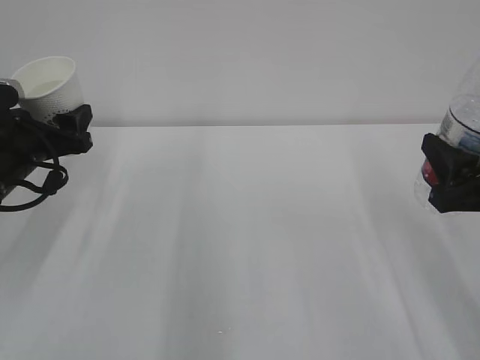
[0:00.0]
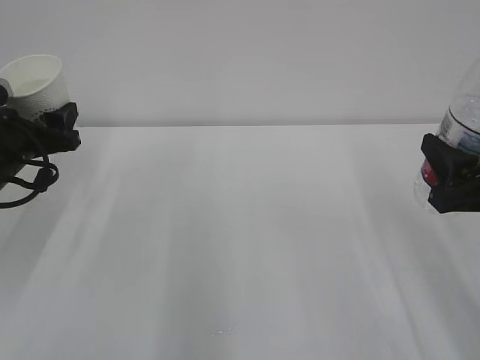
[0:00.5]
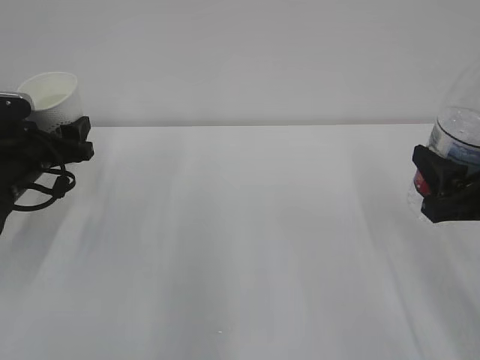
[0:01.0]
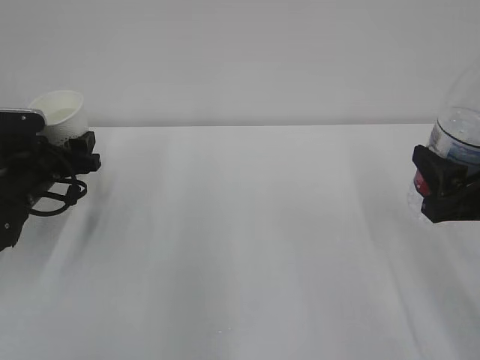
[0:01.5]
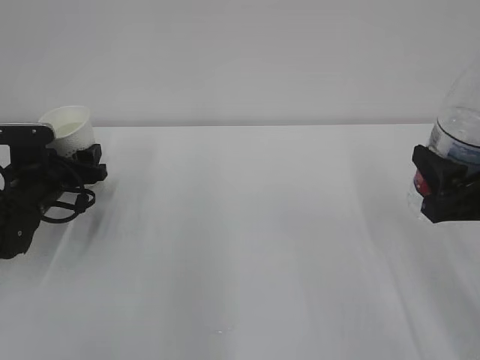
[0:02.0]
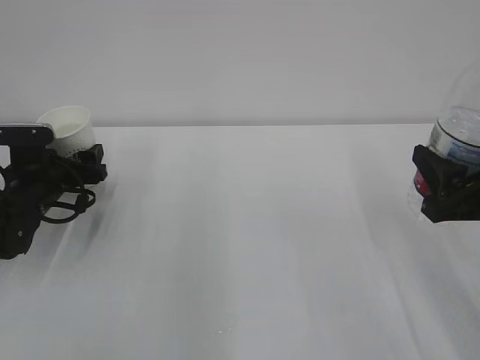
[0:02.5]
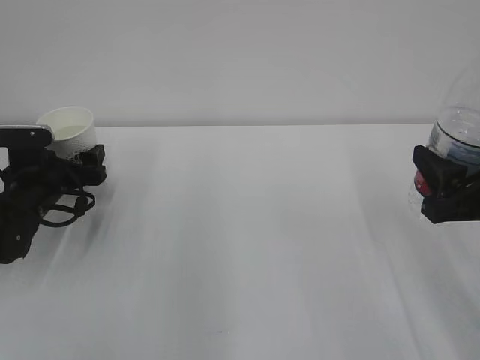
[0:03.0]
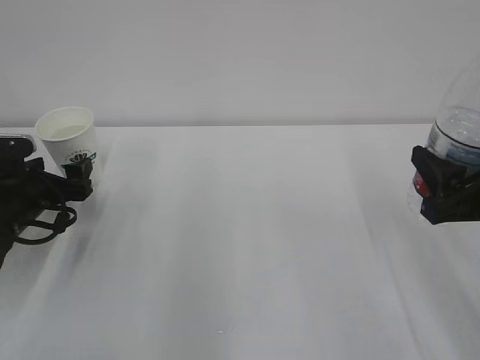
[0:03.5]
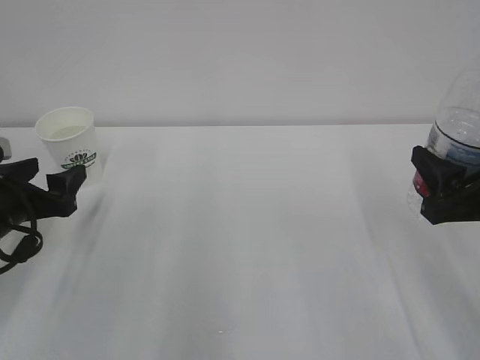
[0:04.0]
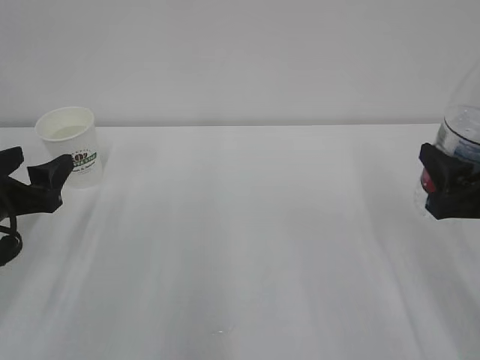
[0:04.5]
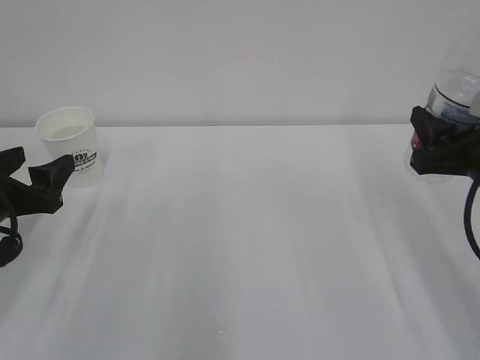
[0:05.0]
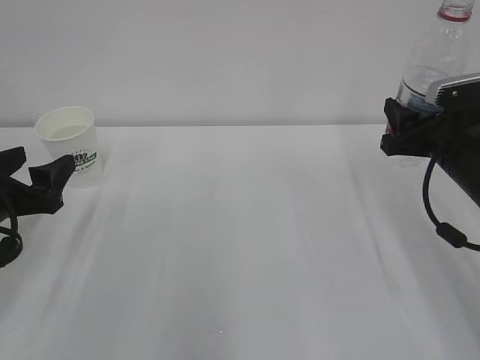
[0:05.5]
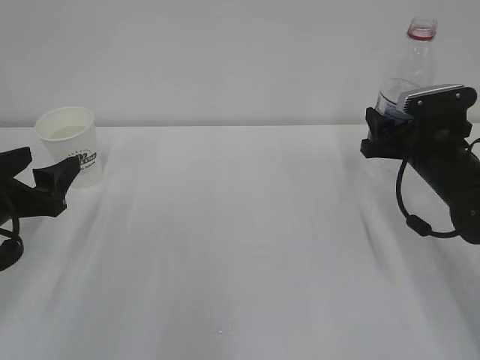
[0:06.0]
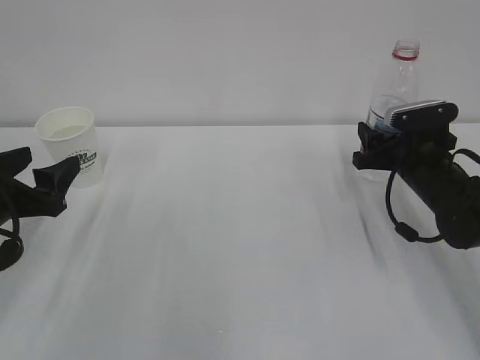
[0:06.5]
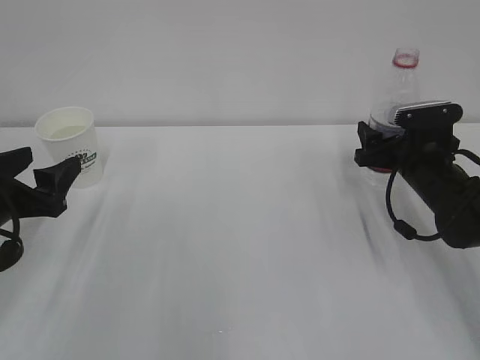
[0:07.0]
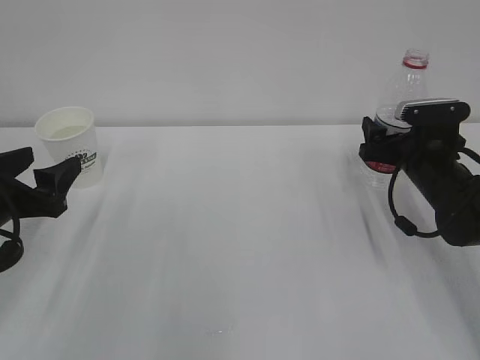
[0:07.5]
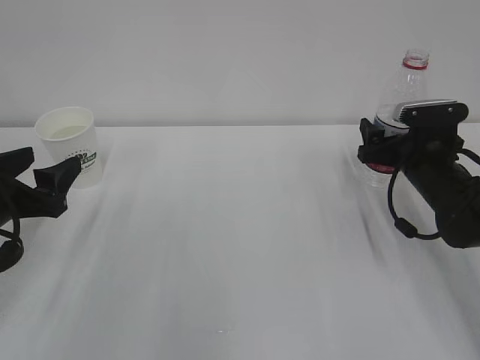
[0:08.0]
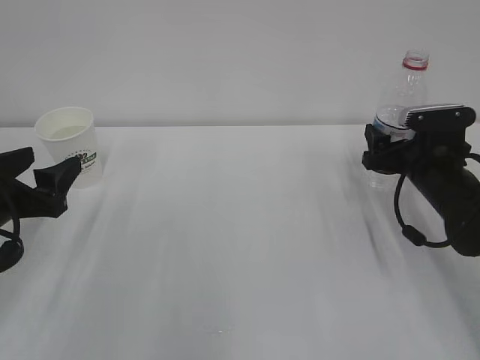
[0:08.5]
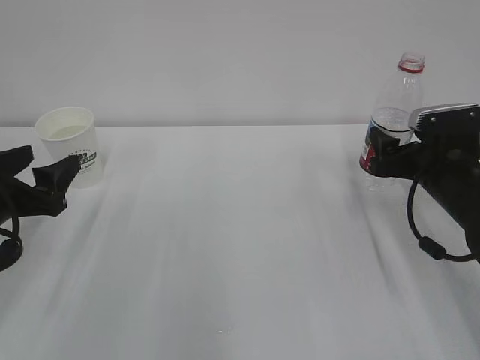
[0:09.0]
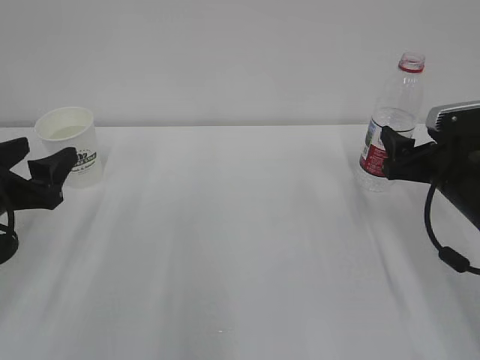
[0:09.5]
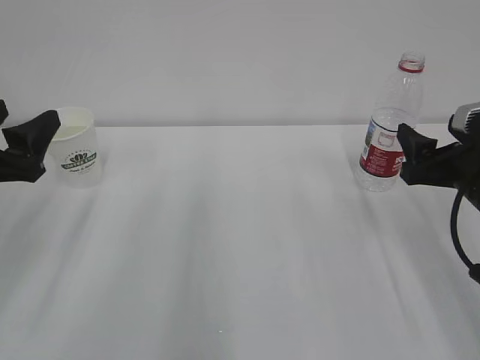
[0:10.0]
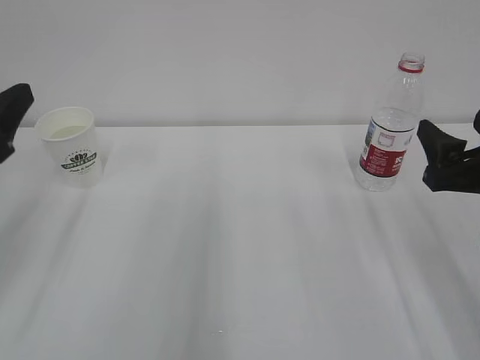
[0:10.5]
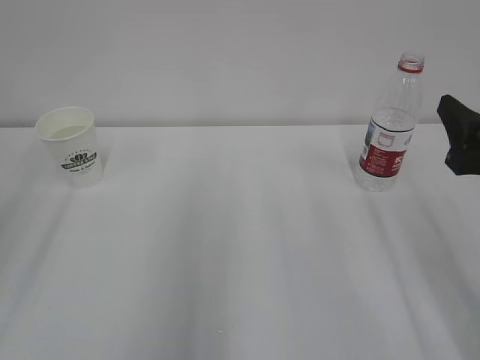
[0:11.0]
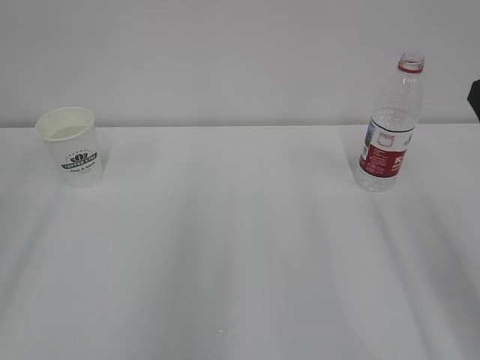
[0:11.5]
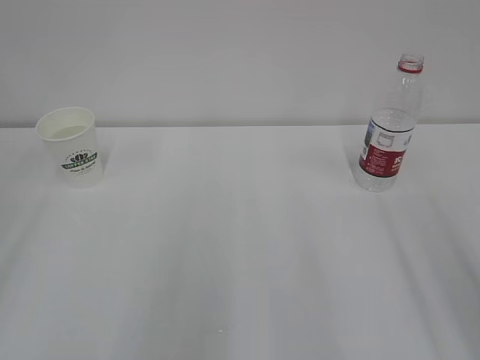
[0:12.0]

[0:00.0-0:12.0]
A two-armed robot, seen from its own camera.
0:00.0 to 0:02.0: The left gripper heads downward, covering approximately 10 cm.
0:02.0 to 0:04.0: The left gripper moves backward, approximately 10 cm, and opens.
0:04.0 to 0:06.0: The right gripper shifts roughly 15 cm forward.
0:06.0 to 0:08.0: The right gripper opens its fingers.
0:08.0 to 0:10.0: The right gripper shifts approximately 10 cm backward and upward.
0:10.0 to 0:12.0: Both grippers travel together backward and upward, approximately 20 cm.

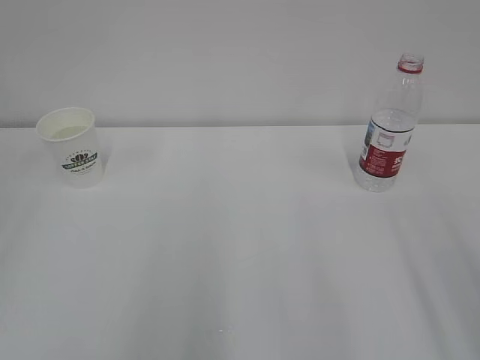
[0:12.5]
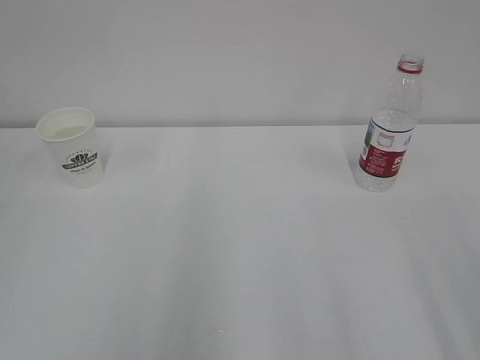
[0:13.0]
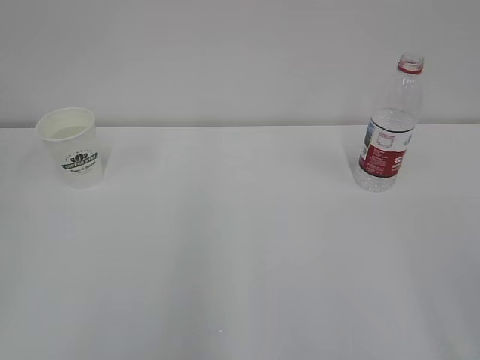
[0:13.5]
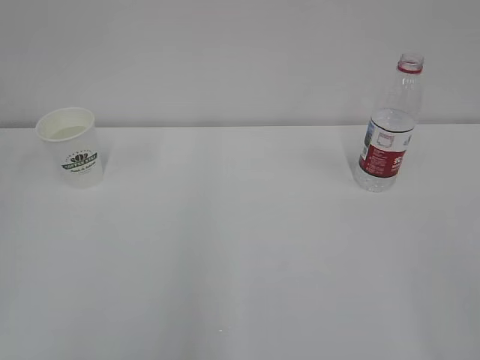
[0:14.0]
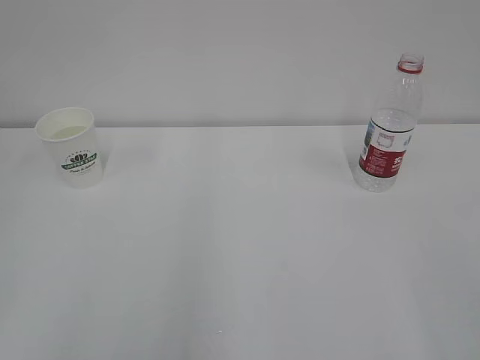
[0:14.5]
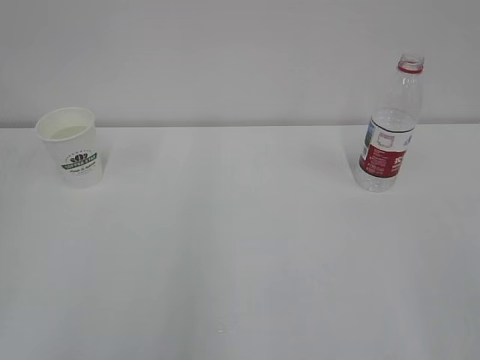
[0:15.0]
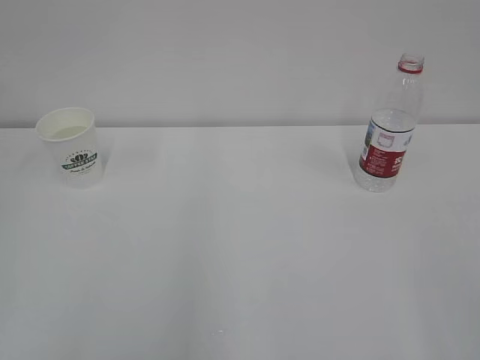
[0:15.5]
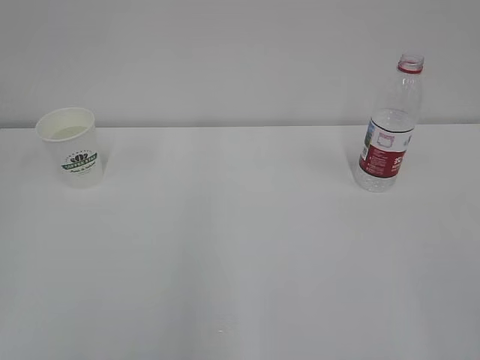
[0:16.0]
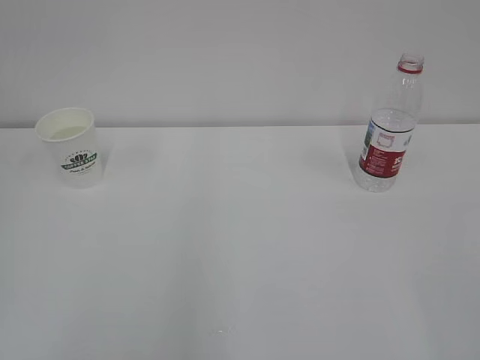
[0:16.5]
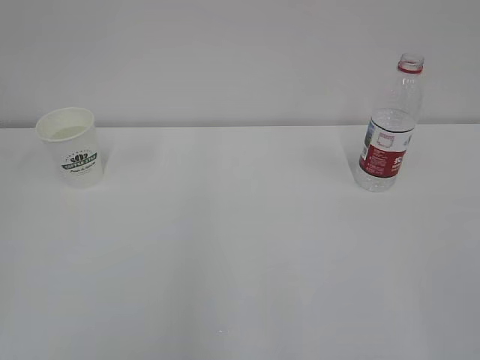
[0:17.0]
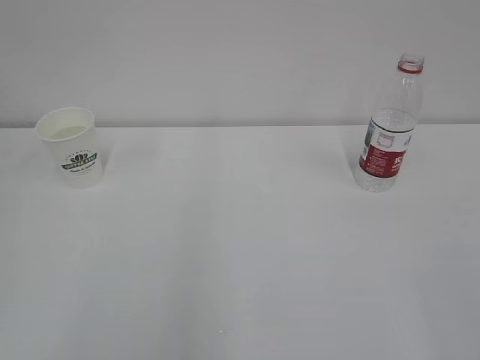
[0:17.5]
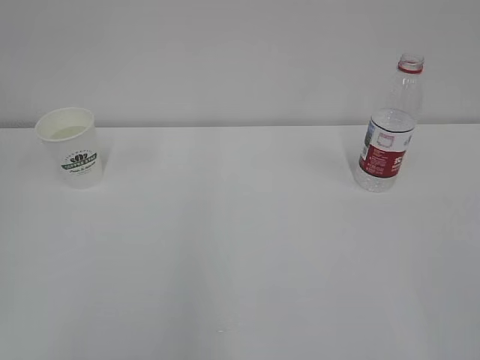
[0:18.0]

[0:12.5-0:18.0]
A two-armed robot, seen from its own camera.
0:16.0 to 0:18.0: The two grippers keep their place.

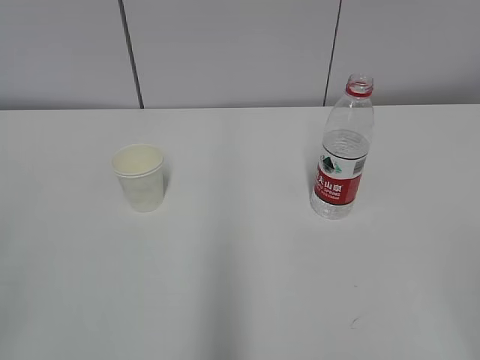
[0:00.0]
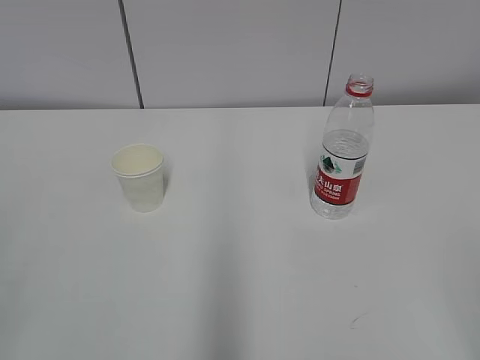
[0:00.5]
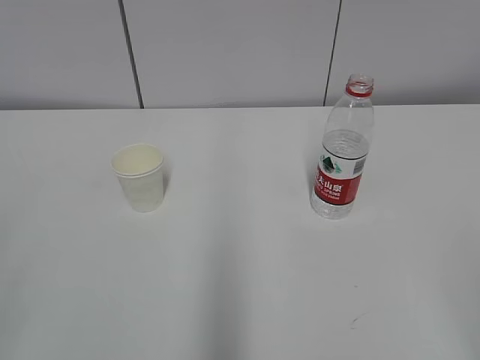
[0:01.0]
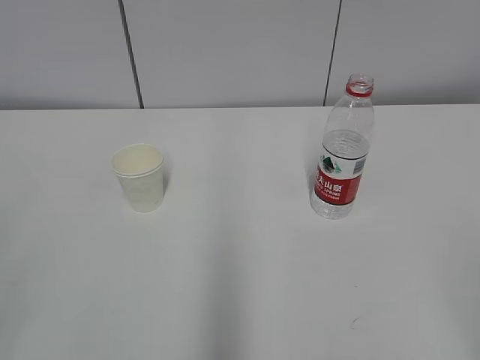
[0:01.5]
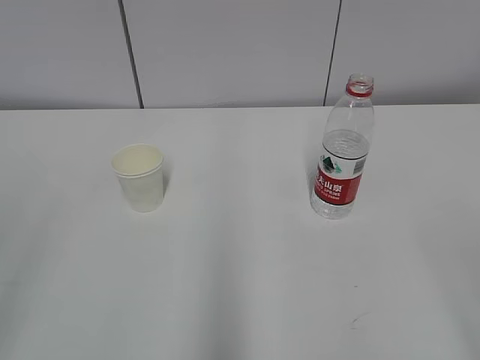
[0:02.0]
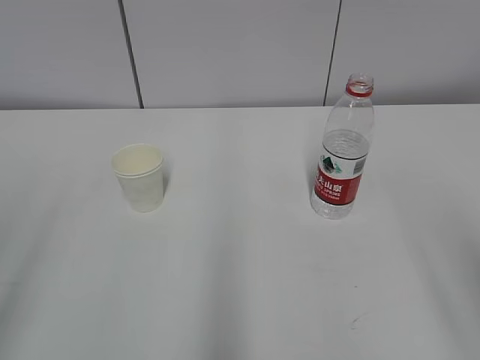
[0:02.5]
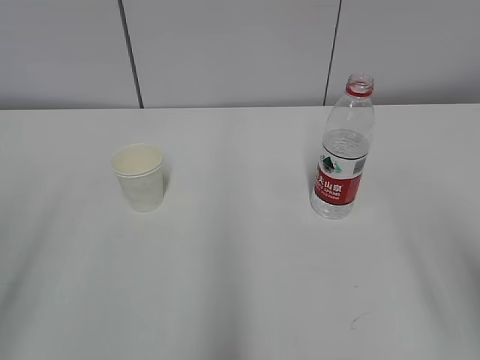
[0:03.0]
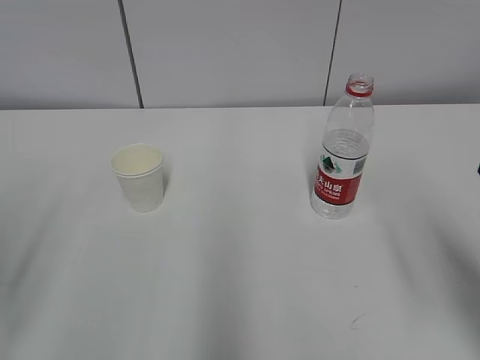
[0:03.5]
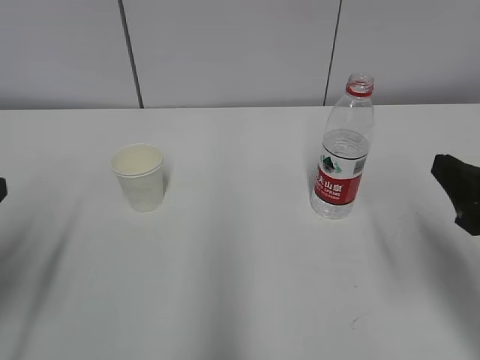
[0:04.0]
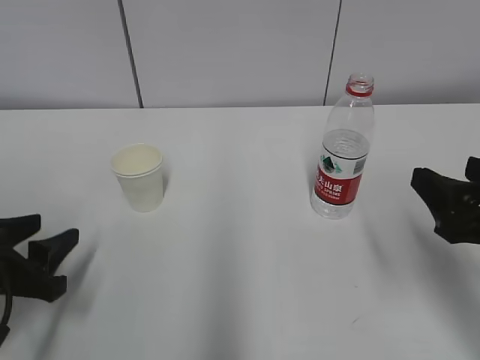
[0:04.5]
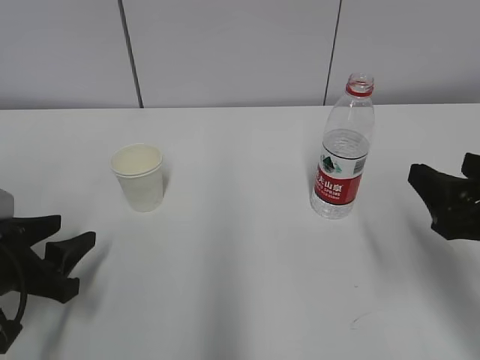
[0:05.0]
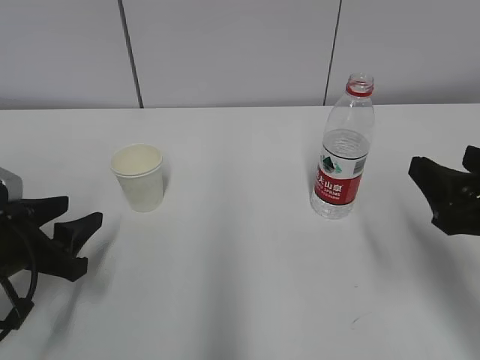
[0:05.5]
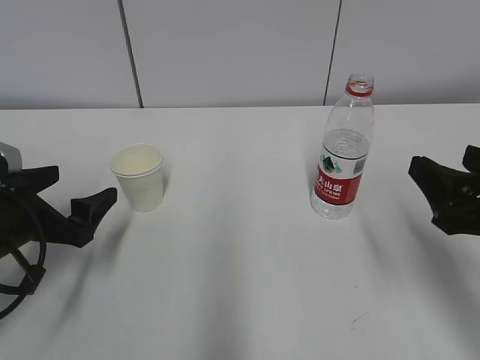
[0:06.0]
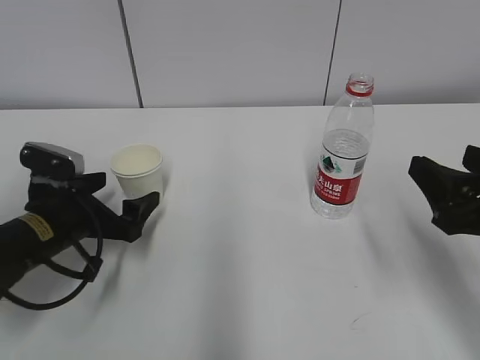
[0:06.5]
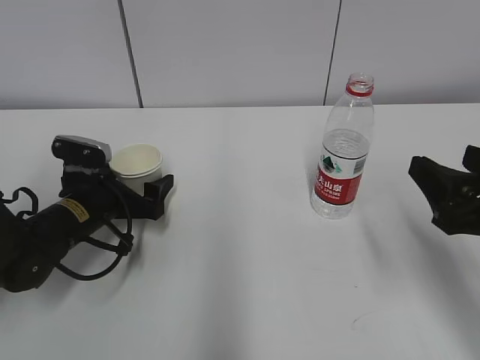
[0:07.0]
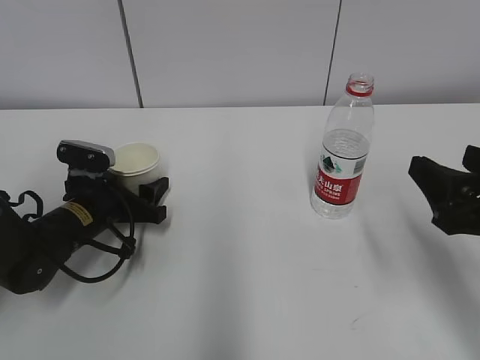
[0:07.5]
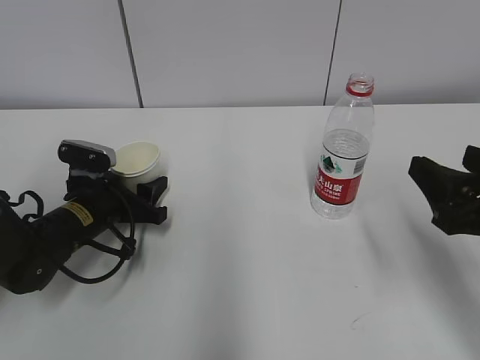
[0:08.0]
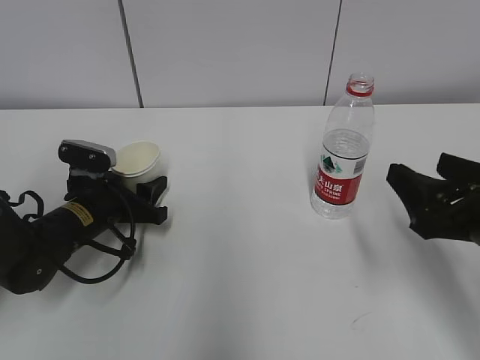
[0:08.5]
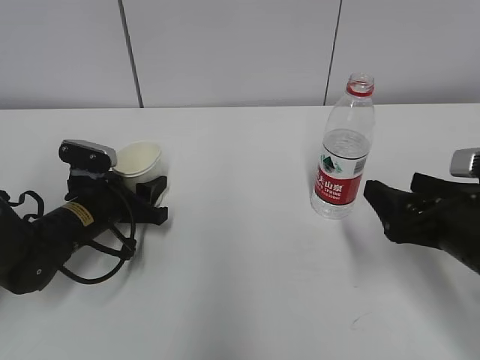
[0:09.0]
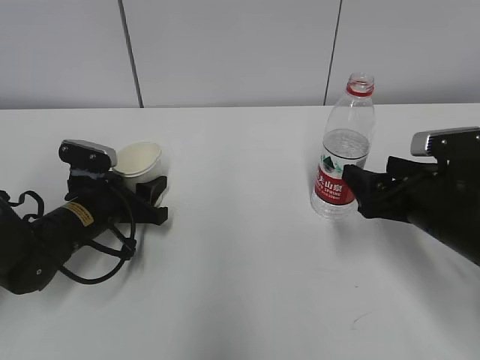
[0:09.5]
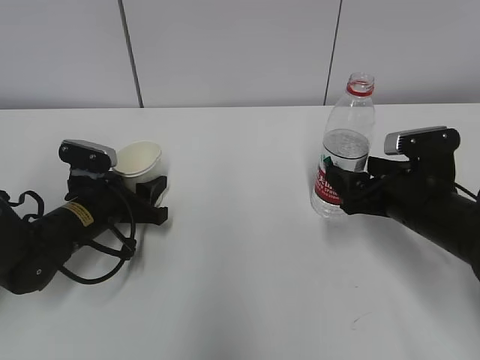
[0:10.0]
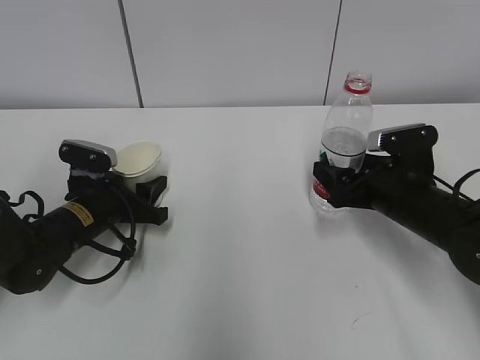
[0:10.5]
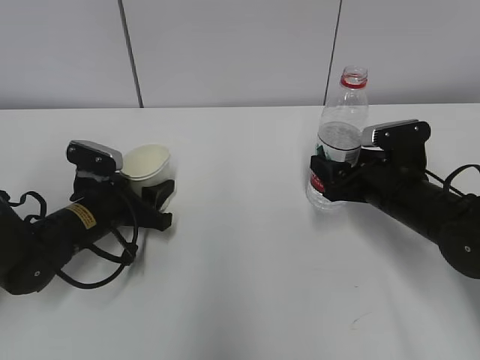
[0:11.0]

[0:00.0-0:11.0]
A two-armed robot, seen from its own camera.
Step, 0:00.0 to 0:10.0: Grab the paper cup with the left hand.
Step, 0:00.0 to 0:10.0: Grab the water bottle with the right hand.
0:02.0 to 0:03.5: The right gripper shifts roughly 15 cm forward.
0:03.5 to 0:05.5: The left gripper travels downward and forward by roughly 15 cm. The right gripper travels forward by approximately 5 cm.
0:05.5 to 0:07.5: The left gripper travels forward, to the right and downward by roughly 15 cm, and opens, then closes once more.
0:07.5 to 0:09.0: The right gripper goes roughly 5 cm downward.
0:09.0 to 0:11.0: The right gripper heads forward, covering roughly 10 cm.
